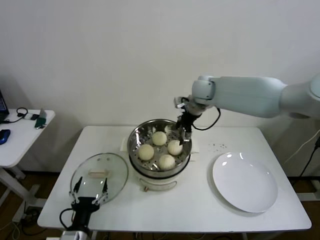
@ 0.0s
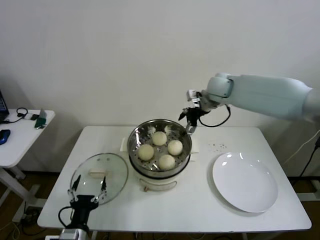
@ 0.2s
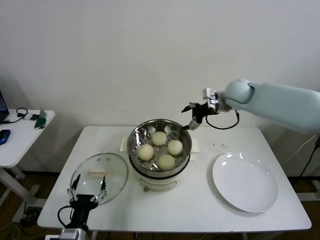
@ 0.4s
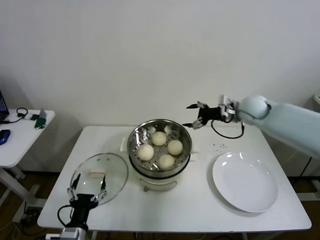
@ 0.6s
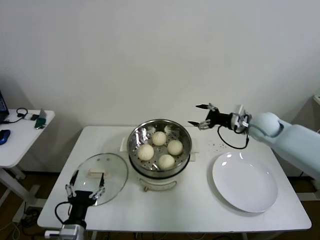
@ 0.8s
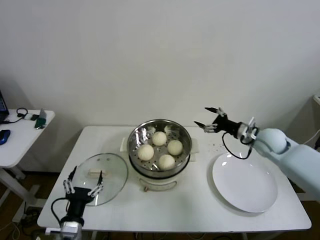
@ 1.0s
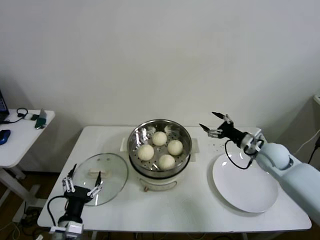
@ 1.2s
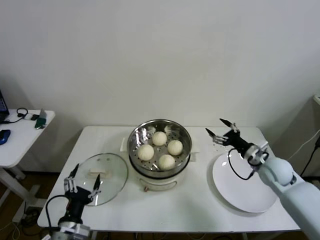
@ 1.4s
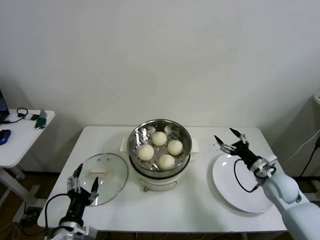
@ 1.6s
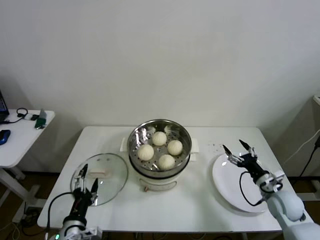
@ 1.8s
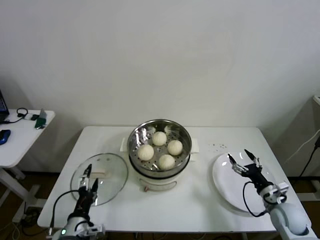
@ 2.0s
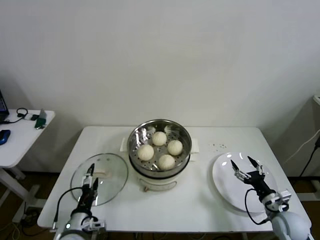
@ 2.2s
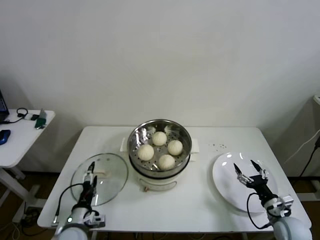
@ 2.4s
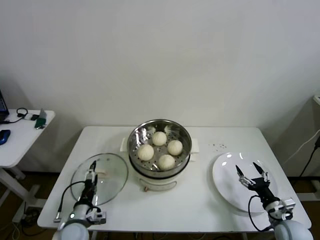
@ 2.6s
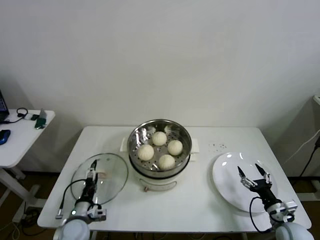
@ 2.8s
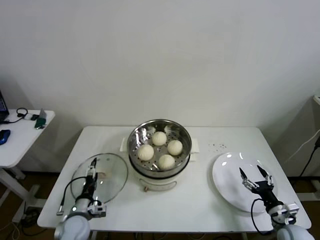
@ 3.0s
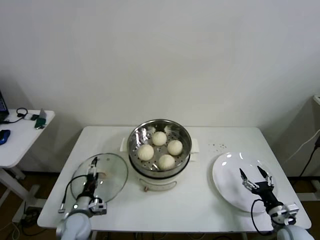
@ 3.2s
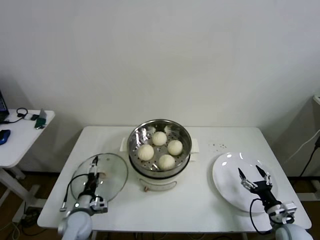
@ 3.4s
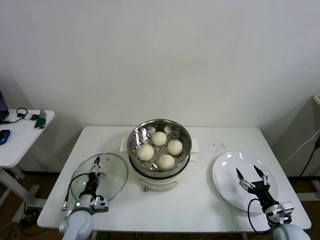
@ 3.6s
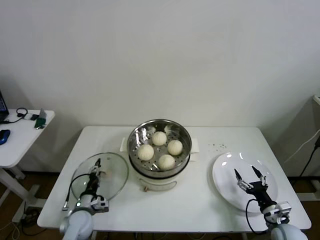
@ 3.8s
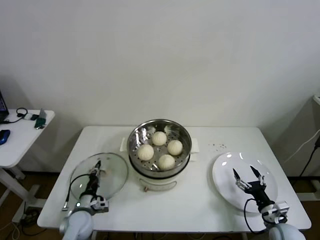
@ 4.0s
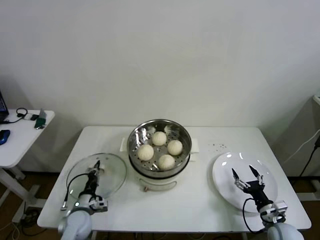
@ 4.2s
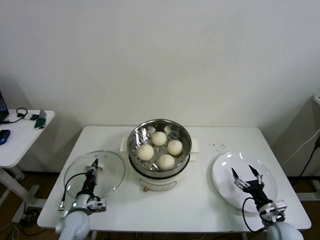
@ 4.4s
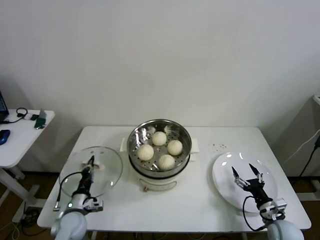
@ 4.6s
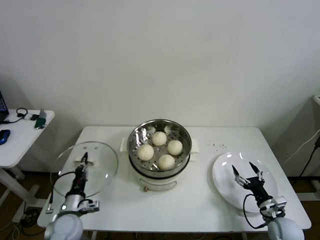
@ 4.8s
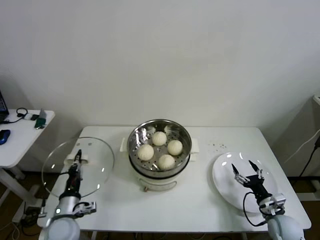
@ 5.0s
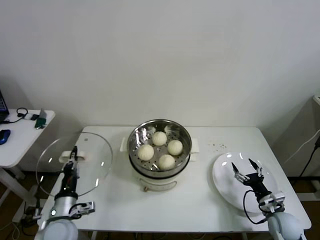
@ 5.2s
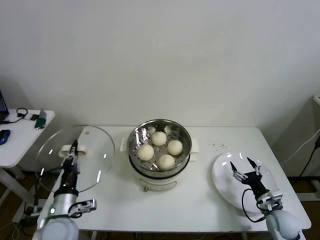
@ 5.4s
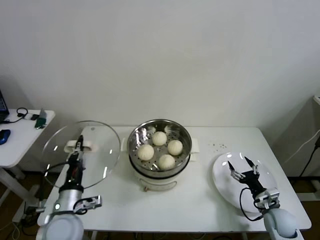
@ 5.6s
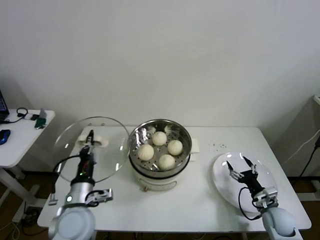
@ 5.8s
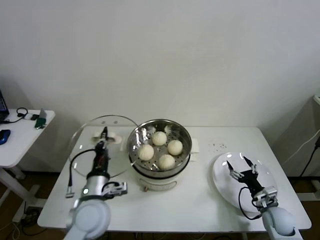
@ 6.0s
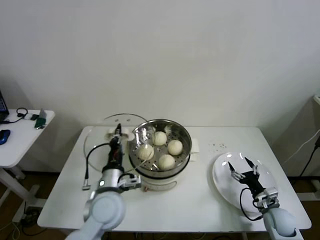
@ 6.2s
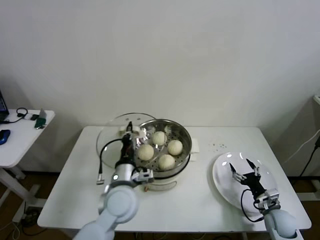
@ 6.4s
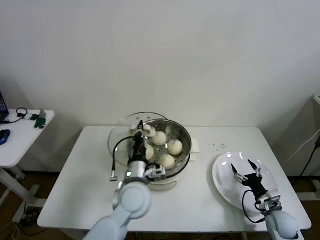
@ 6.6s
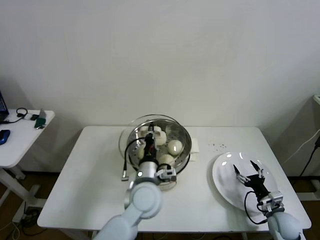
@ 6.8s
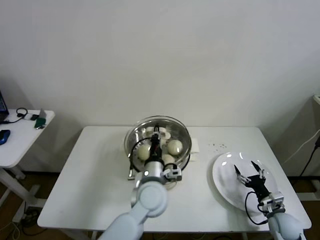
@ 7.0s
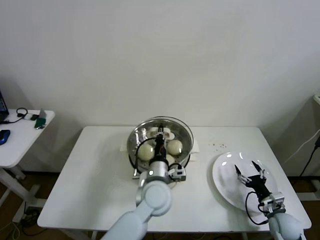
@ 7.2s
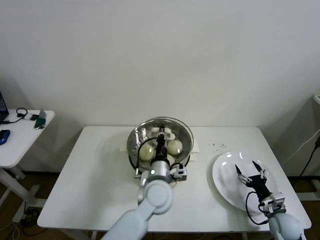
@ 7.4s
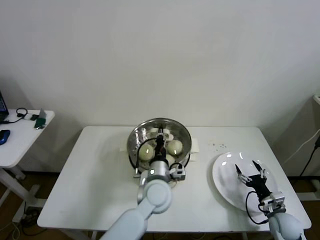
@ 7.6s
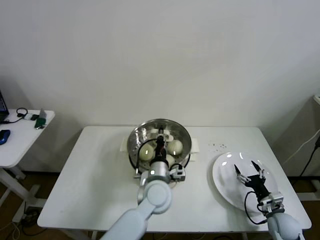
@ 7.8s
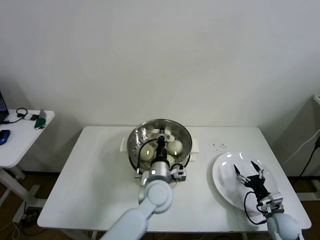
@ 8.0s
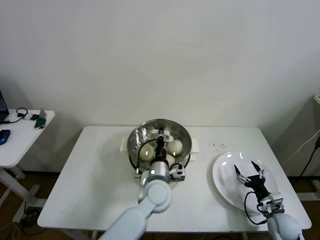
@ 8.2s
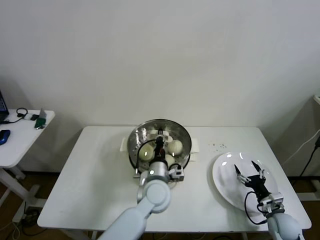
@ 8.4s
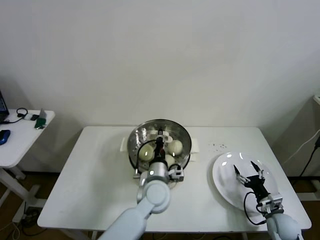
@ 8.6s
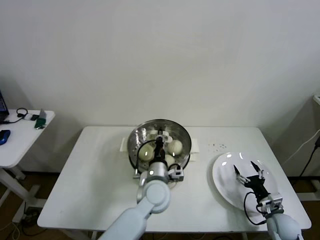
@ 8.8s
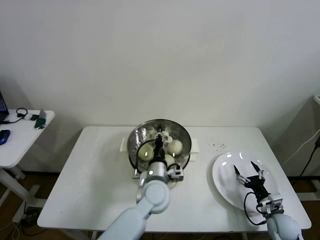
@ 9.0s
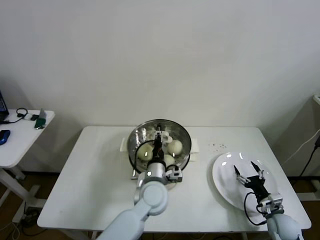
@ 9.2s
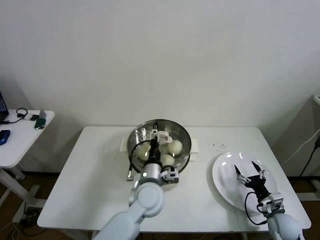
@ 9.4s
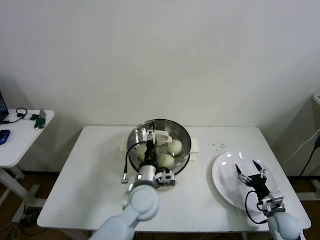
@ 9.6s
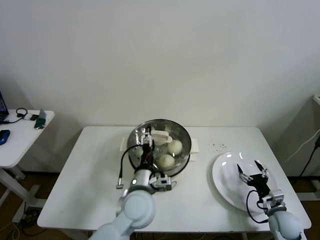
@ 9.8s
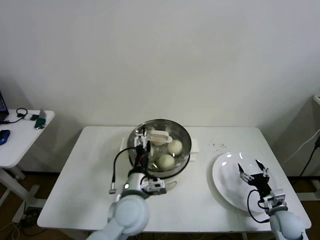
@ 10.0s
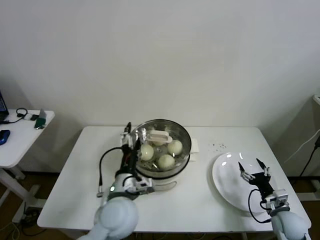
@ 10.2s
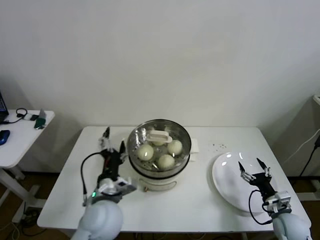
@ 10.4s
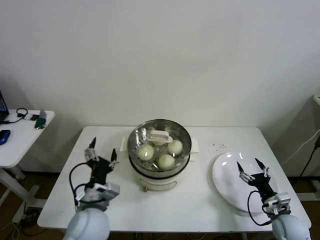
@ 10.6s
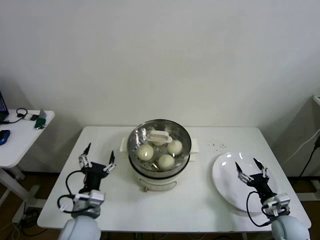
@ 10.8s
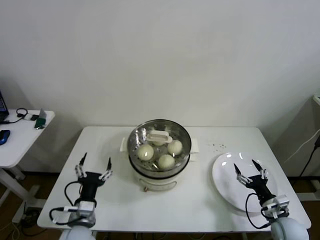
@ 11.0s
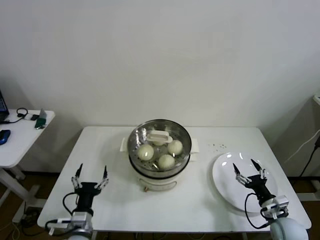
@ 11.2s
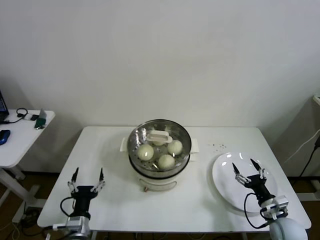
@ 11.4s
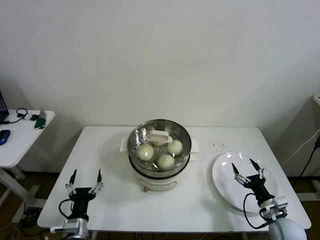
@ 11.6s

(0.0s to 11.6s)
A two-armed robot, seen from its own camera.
Step, 0.0s - 4.0s: Grasp the pot lid with left gripper.
Step, 4.4s - 10.0s: Place the pot lid on the steamer with left gripper.
0.0s - 1.4s: The right gripper shifts roughly 35 cm to the right, downward and backward.
1.4s - 2.8s: The right gripper travels backward and downward by some 20 cm; the left gripper moves downward and forward, approximately 15 cm.
2.8s - 4.4s: The left gripper closes up.
4.4s - 5.8s: The left gripper goes approximately 15 cm upward.
5.8s - 7.2s: The left gripper moves to the right, approximately 20 cm.
7.2s - 8.8s: The grippers stay close to where they were, moving slightly.
8.8s - 10.2s: The left gripper travels to the left, backward and upward by about 10 cm, and opens up.
10.2s - 11.6s: The left gripper moves to the left, downward and backward, roughly 25 cm.

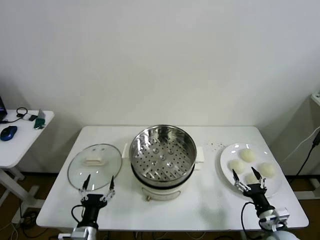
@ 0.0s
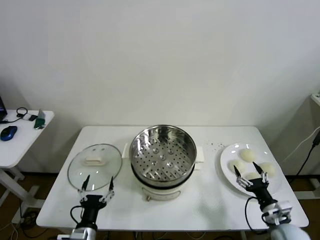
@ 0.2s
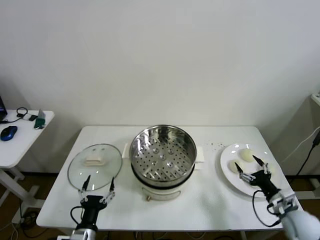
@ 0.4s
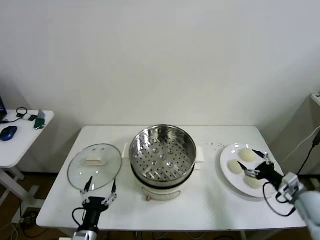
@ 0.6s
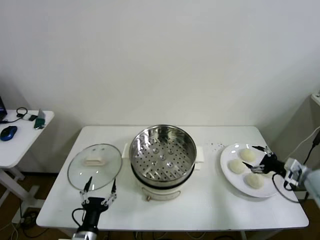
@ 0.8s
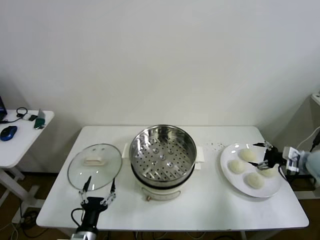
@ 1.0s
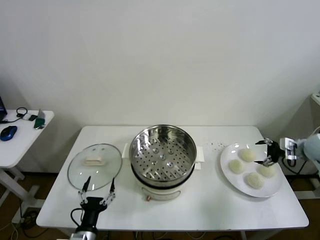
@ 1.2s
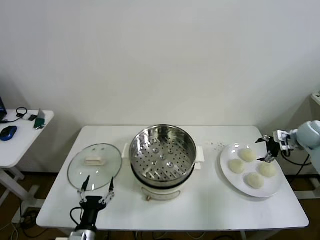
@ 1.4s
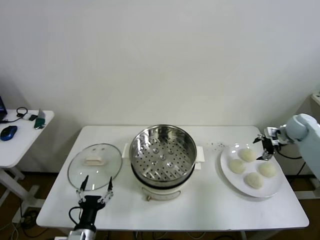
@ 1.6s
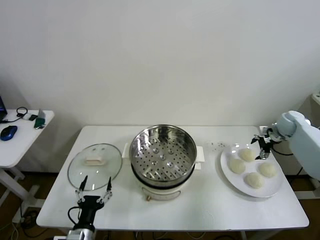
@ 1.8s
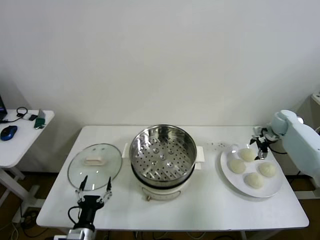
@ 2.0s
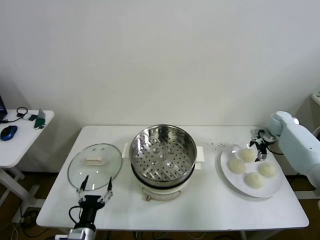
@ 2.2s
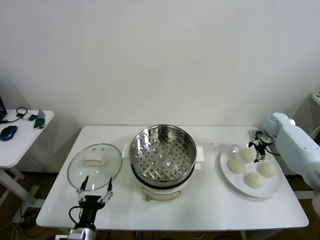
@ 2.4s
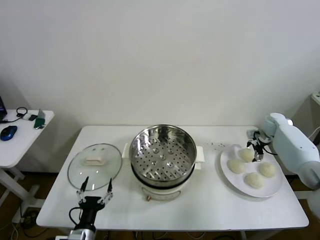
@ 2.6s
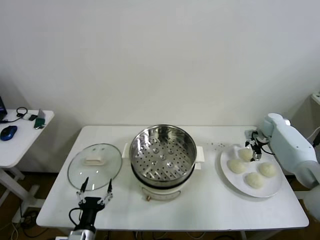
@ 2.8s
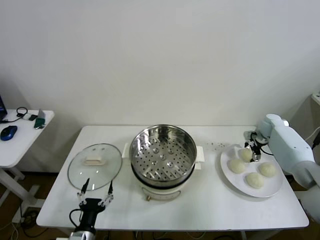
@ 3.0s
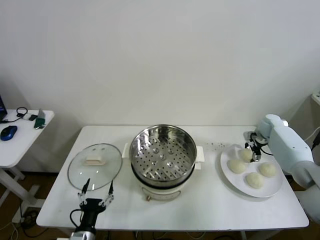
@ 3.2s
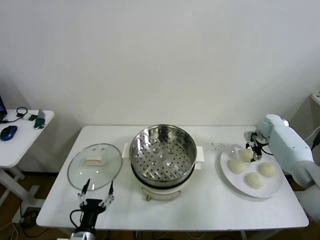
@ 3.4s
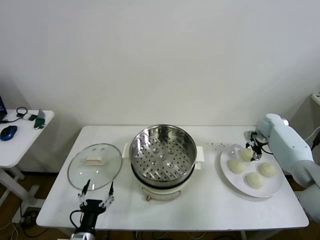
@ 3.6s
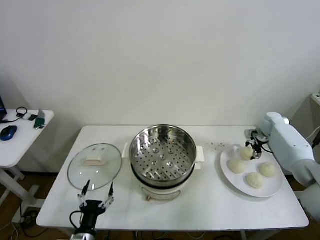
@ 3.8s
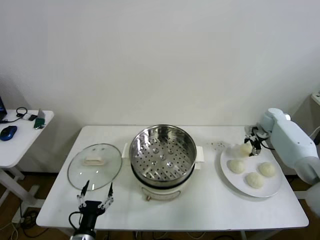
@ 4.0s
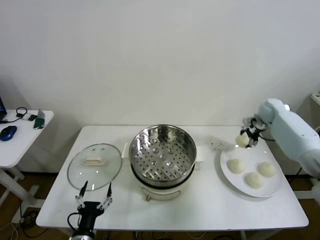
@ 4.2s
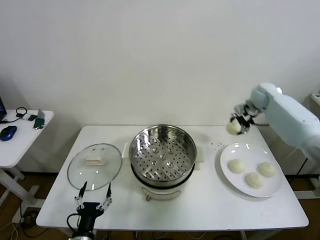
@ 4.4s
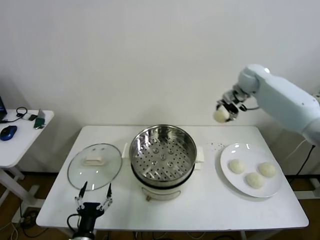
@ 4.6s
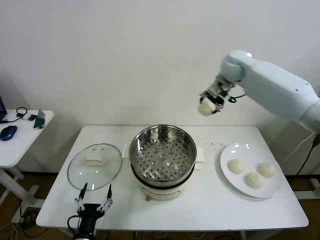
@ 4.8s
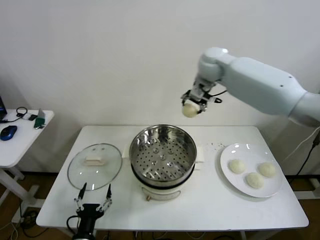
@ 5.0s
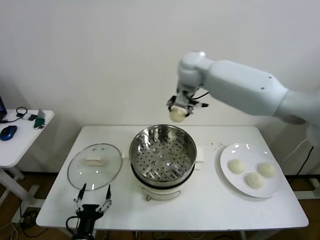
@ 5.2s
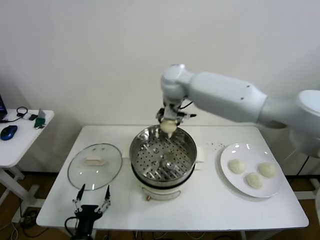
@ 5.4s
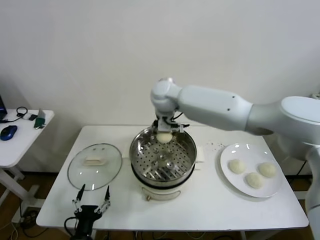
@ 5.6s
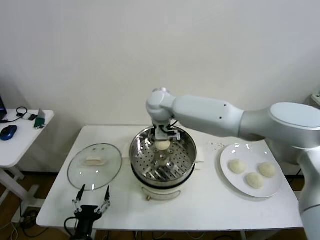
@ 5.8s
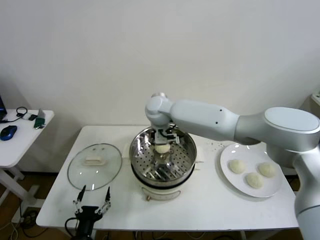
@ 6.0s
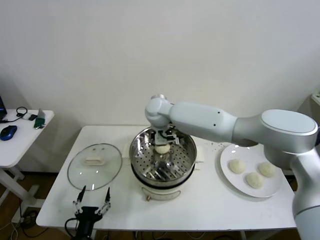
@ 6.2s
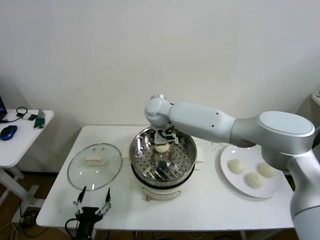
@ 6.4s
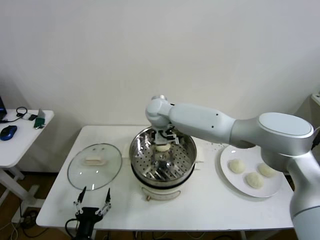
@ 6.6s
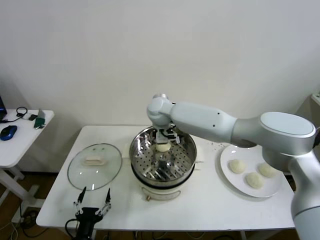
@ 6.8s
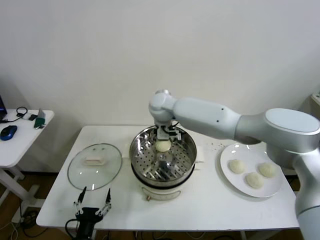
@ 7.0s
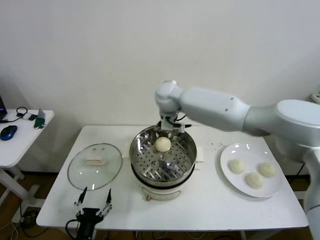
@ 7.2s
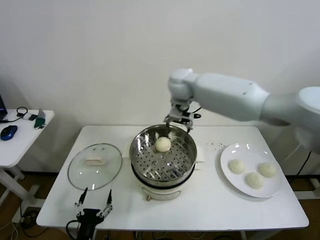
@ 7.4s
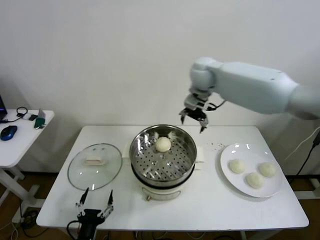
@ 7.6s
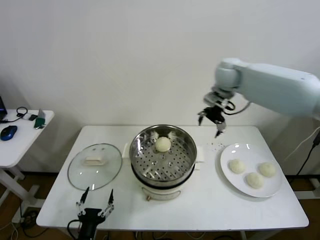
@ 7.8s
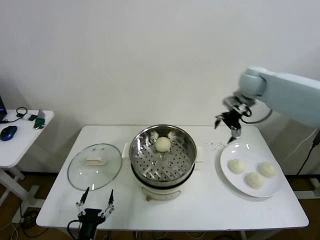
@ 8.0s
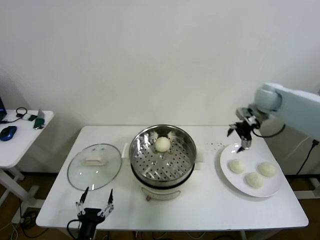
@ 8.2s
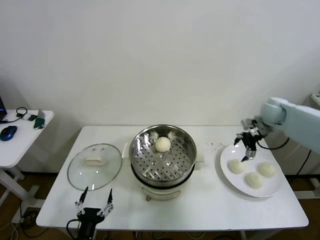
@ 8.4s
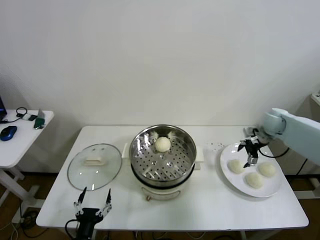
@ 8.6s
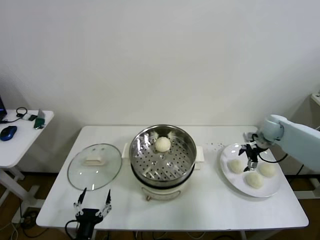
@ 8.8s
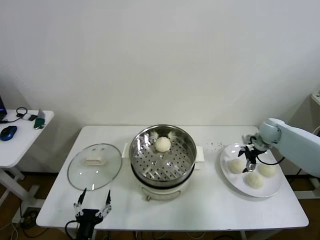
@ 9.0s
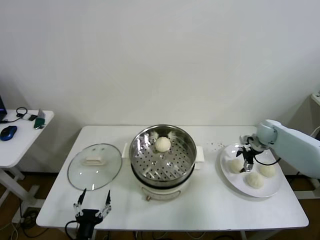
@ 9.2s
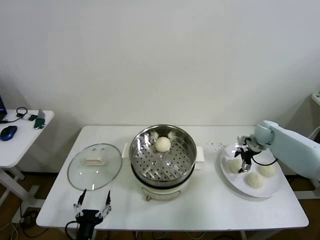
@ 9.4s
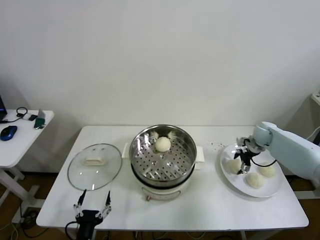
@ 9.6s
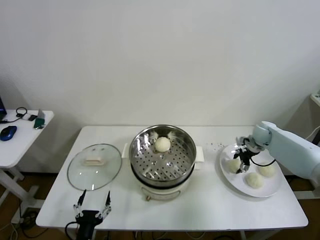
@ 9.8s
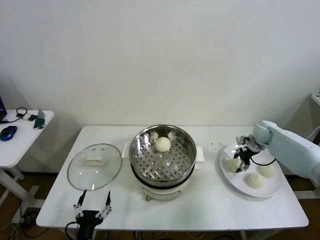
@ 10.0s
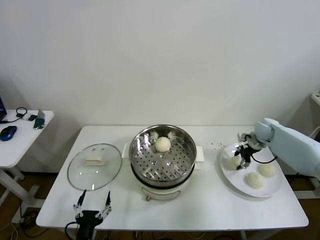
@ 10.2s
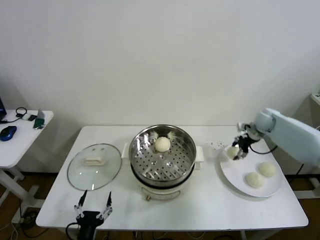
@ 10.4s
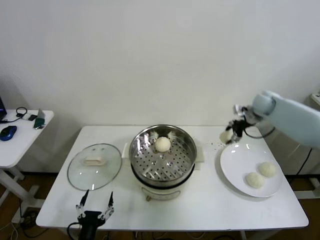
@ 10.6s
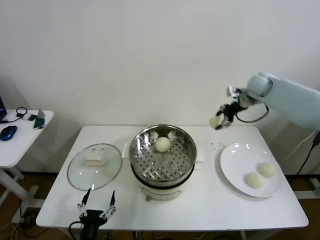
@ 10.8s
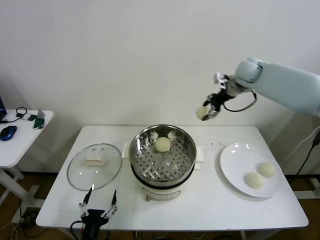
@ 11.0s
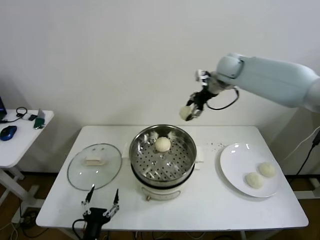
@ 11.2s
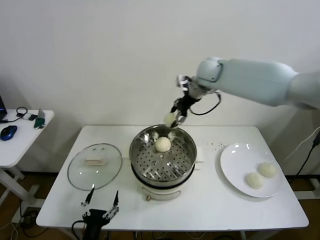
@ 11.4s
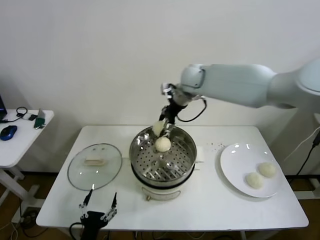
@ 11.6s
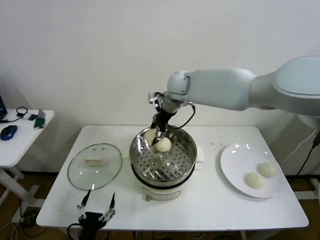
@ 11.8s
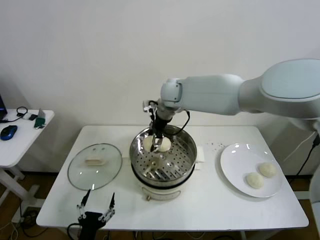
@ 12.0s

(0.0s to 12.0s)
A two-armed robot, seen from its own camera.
Step, 0.0s - 3.2s: Grasp the baozi in the plate with right gripper.
Step, 3.4s - 6.4s: Place the baozi on the steamer with right gripper.
Step, 6.6s - 9.6s: Grasp the baozi in the plate with right gripper.
1.6s - 3.0s: The right gripper is displaced forward, downward and to the left by some 10 cm.
3.0s - 4.4s: The right gripper goes approximately 15 cm upward and to the left, and closes up.
4.4s - 6.0s: The right gripper shifts some 40 cm to the left.
6.0s - 7.6s: The right gripper shifts roughly 20 cm to the right and upward, and opens its fingers.
7.6s - 9.0s: The right gripper shifts roughly 35 cm to the right and downward.
9.0s - 10.4s: The right gripper closes up.
10.4s - 12.0s: The right gripper is displaced to the left by approximately 40 cm.
